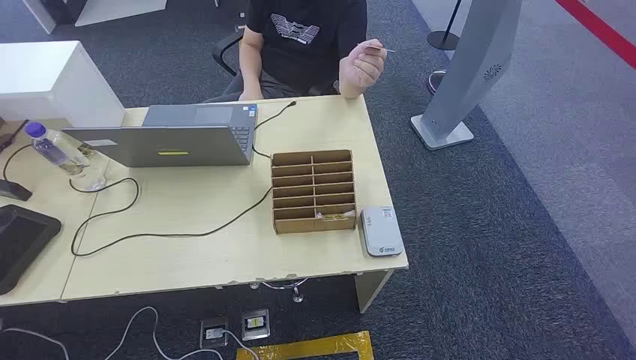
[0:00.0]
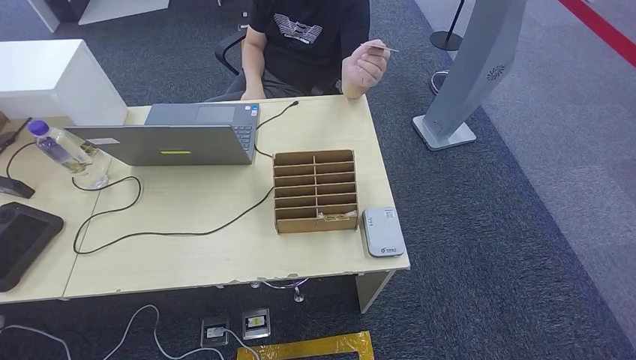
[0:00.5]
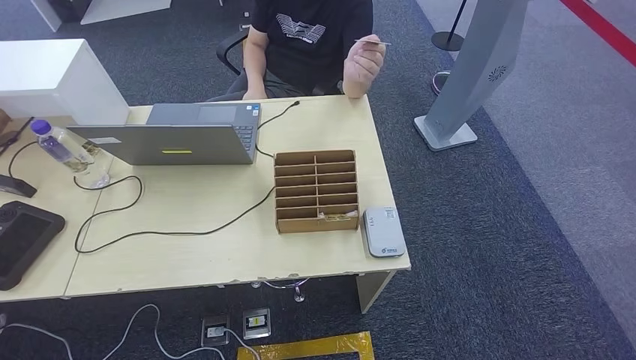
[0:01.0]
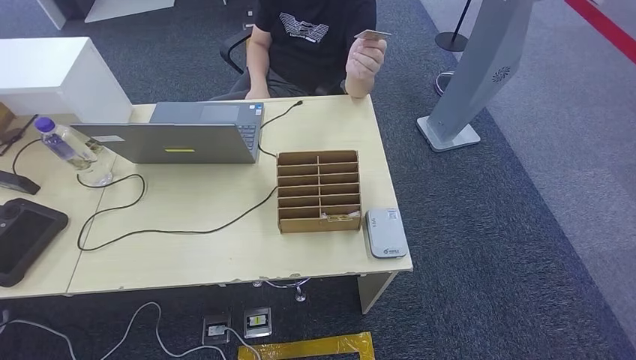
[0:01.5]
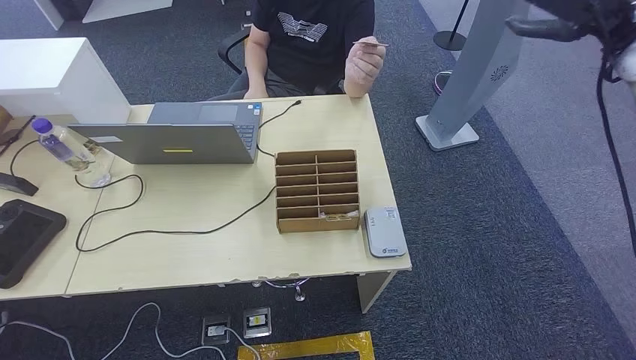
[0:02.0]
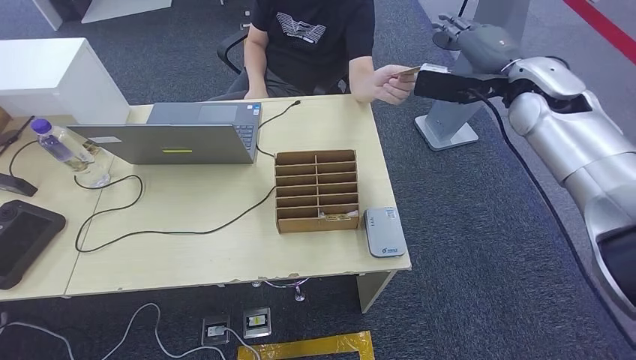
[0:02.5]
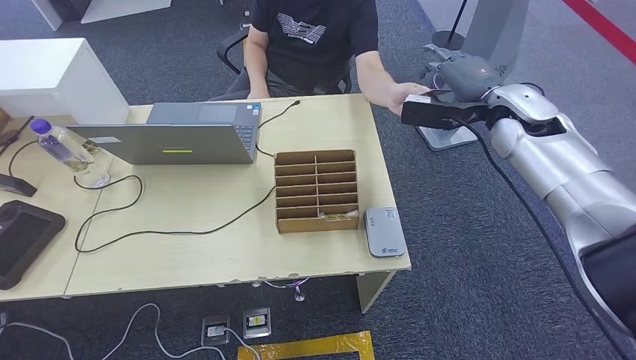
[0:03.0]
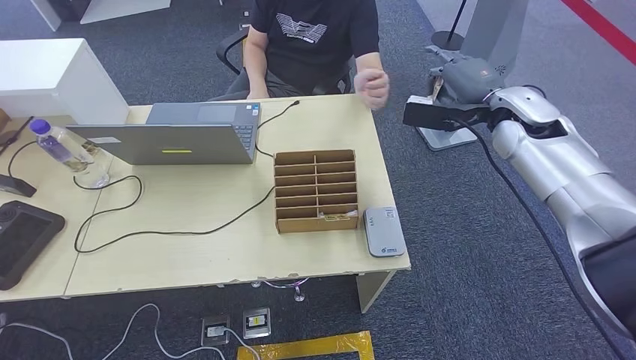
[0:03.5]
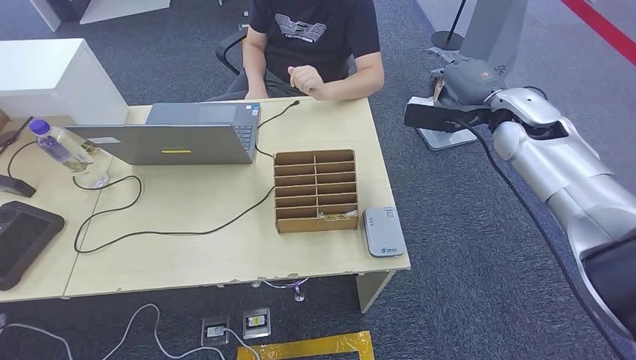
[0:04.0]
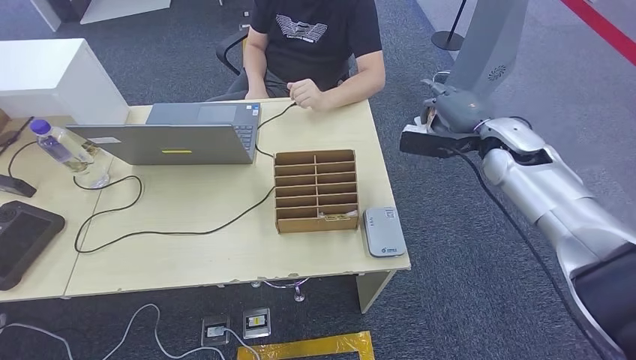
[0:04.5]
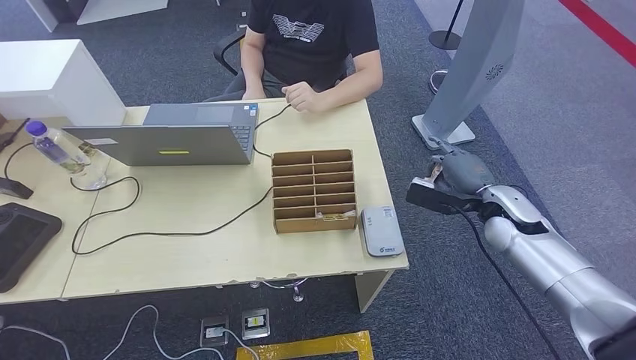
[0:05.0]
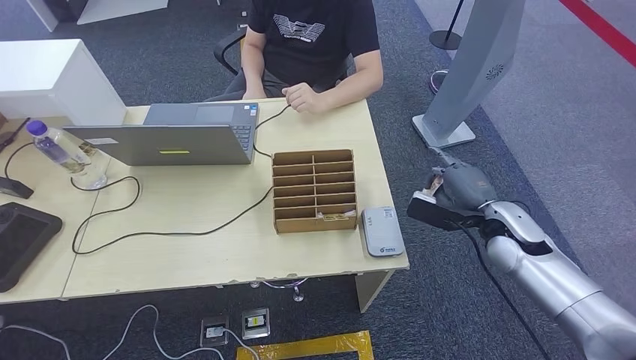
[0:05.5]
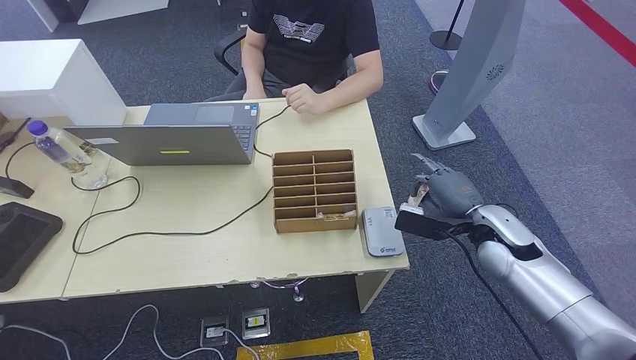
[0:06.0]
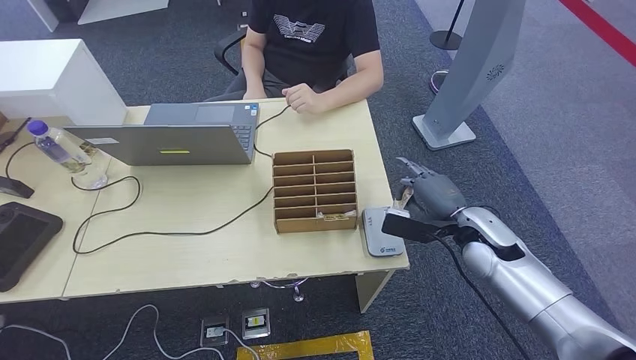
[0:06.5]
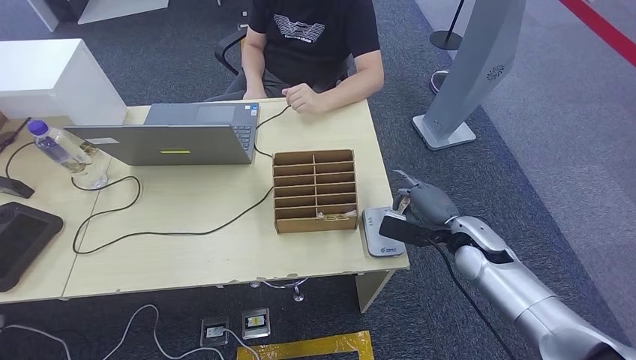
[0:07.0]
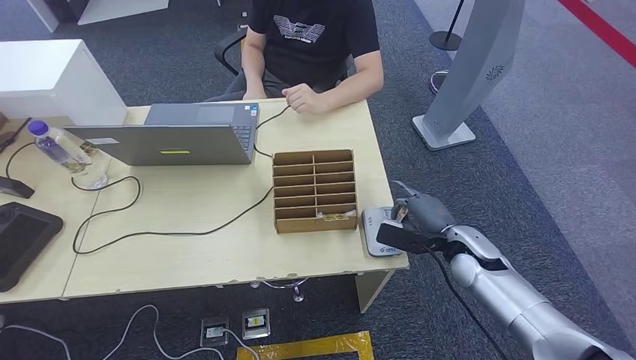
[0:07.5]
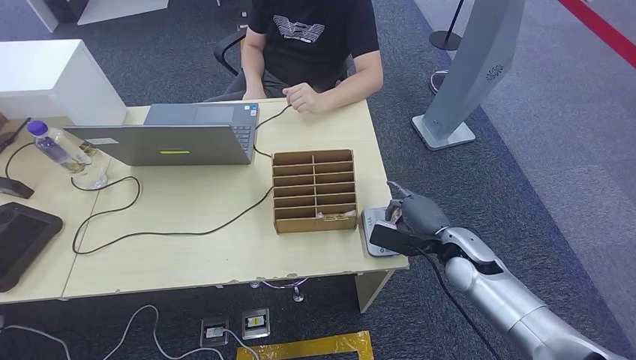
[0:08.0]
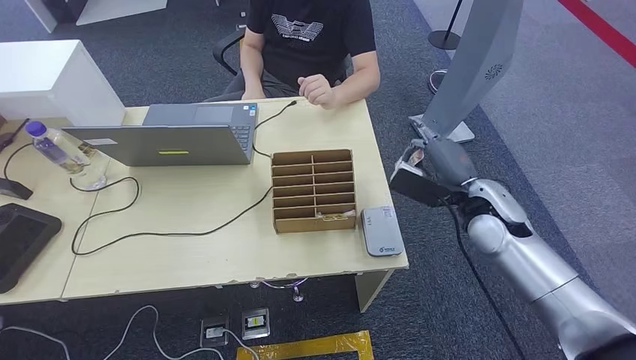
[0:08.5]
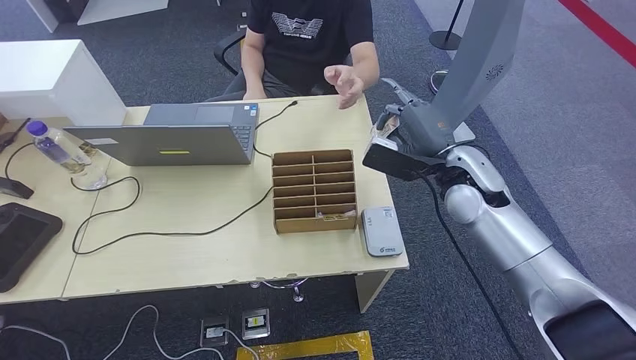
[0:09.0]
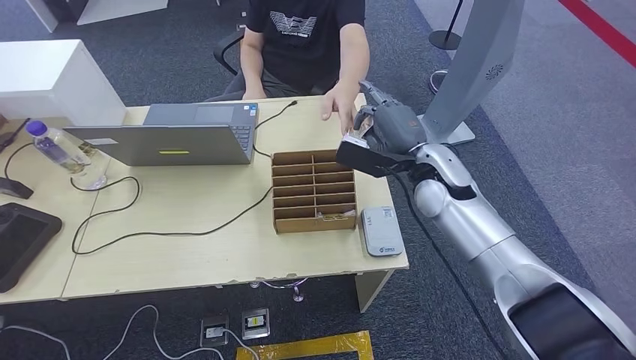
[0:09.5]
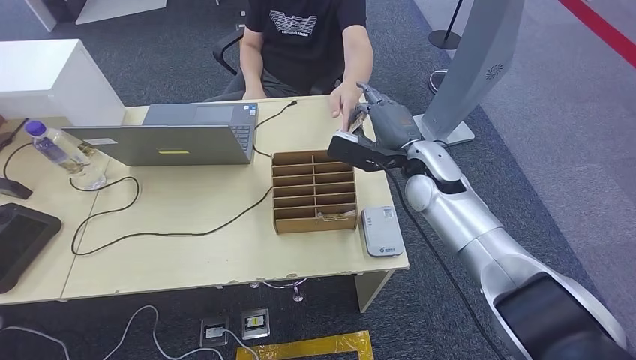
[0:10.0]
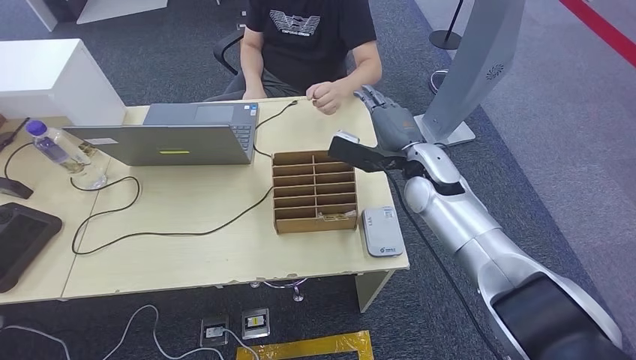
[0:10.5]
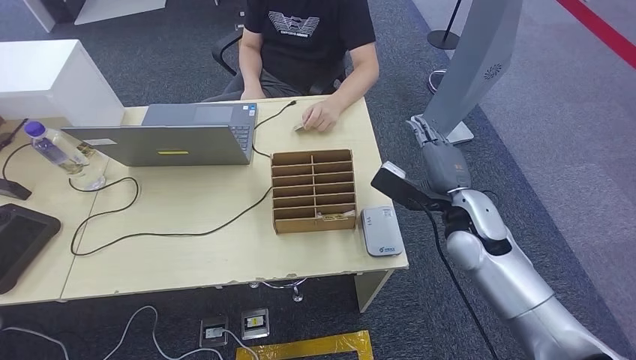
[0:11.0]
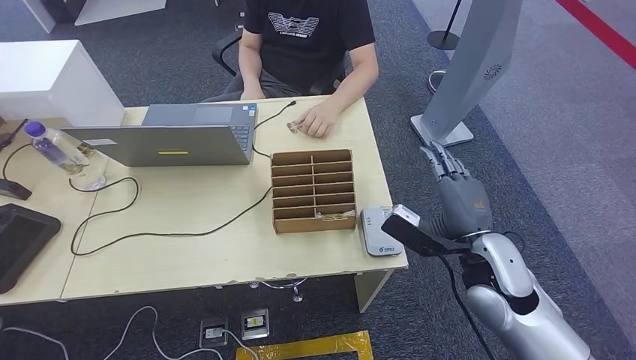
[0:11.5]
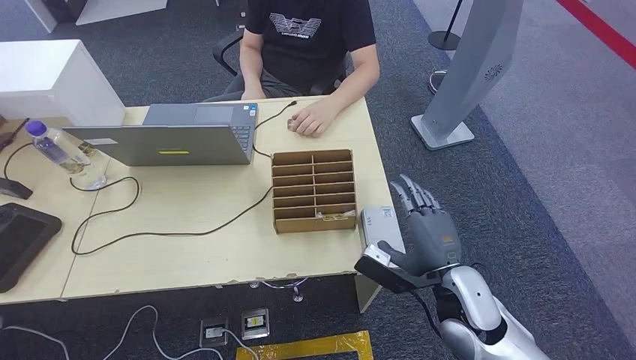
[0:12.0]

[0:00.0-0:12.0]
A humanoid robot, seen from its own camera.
Step, 0:00.0 to 0:04.0: Take the ID card from the person's hand.
Step, 0:04.5 to 0:07.0: Place the ID card on the card reader.
Step, 0:07.5 to 0:11.0: Hand the ID card to the person.
0:04.0 to 0:06.0: The right hand travels downward and backward by some 20 cm.
0:06.0 to 0:08.0: The right hand travels downward by approximately 5 cm.
0:08.0 to 0:10.0: The right hand shifts roughly 20 cm upward, forward and to the left.
0:10.0 to 0:12.0: The right hand travels backward and downward by approximately 20 cm.

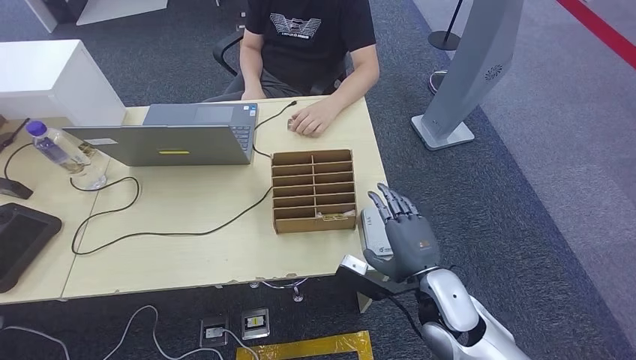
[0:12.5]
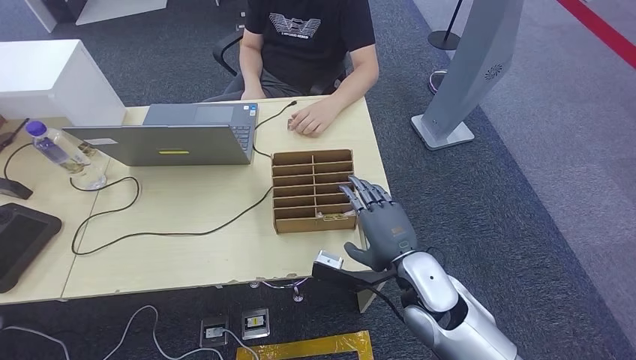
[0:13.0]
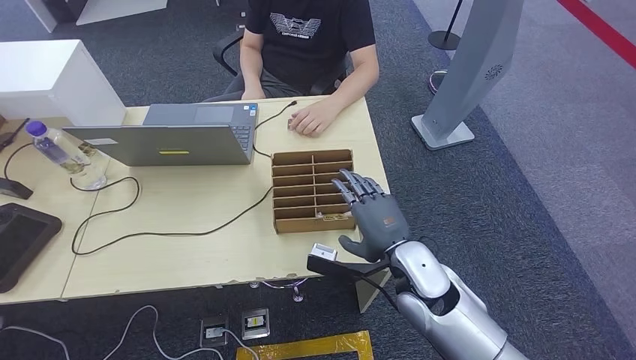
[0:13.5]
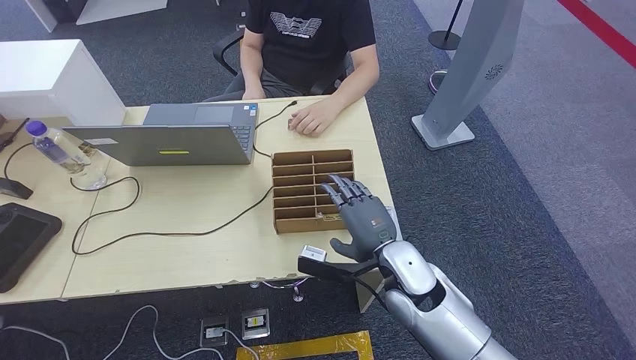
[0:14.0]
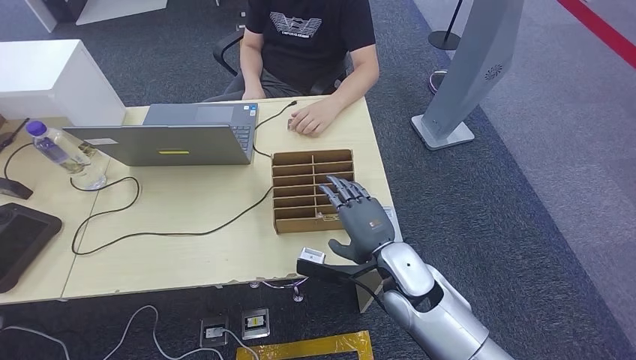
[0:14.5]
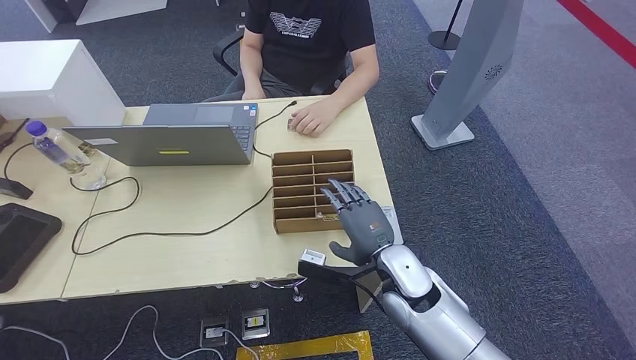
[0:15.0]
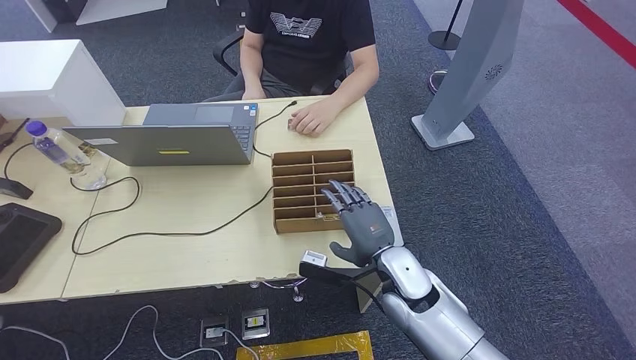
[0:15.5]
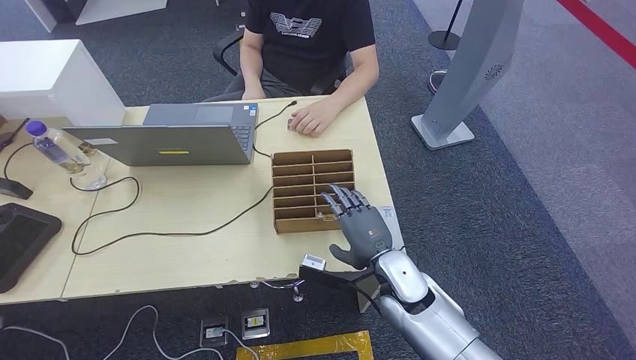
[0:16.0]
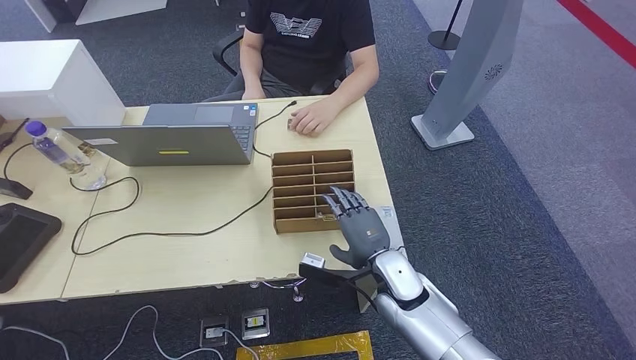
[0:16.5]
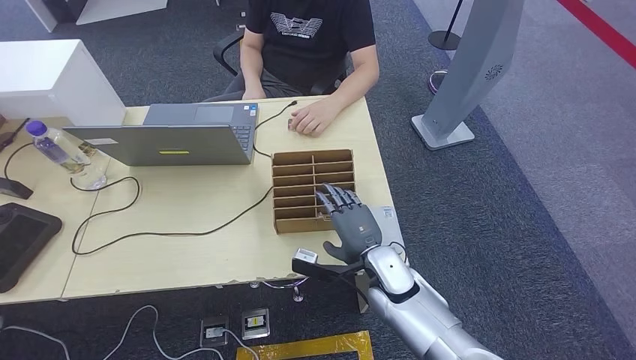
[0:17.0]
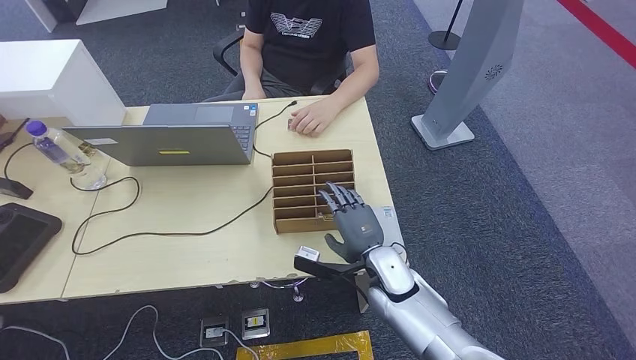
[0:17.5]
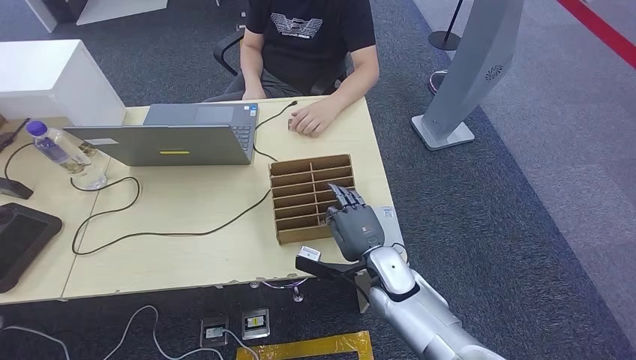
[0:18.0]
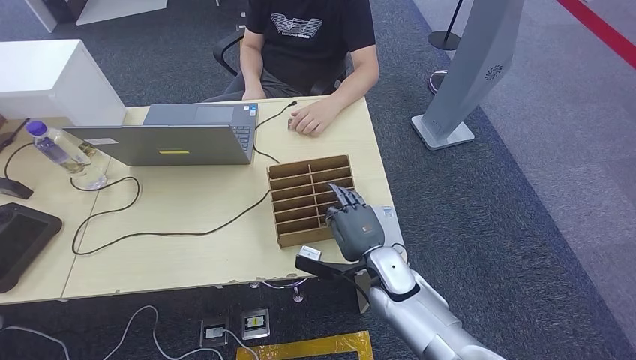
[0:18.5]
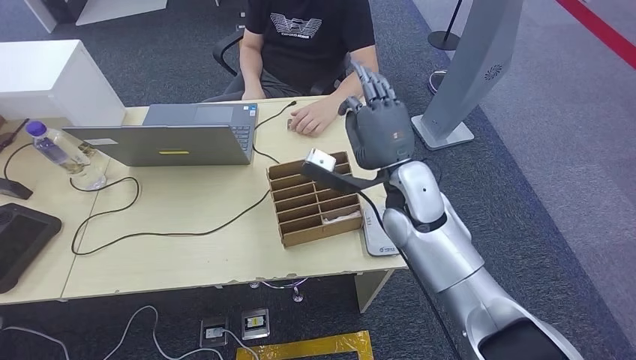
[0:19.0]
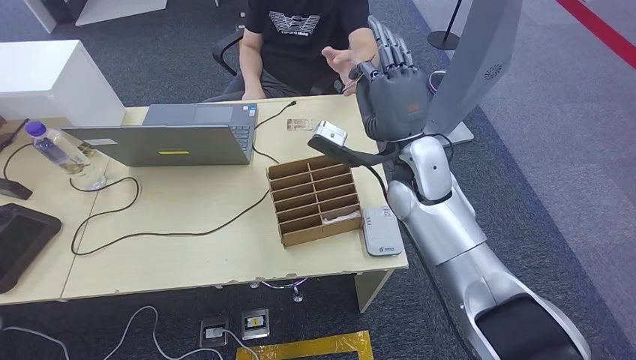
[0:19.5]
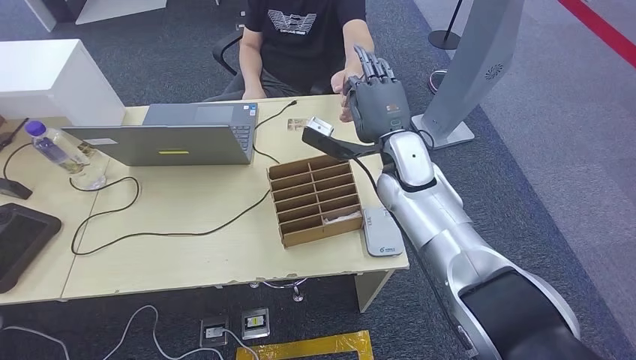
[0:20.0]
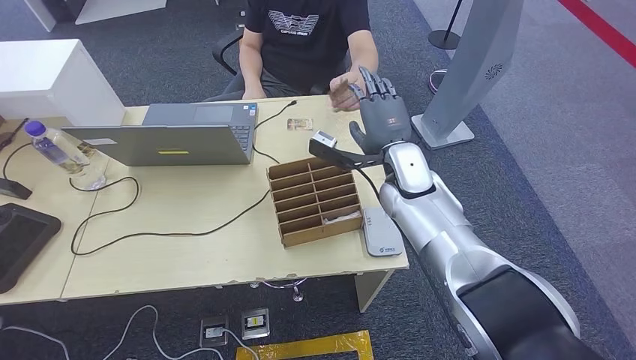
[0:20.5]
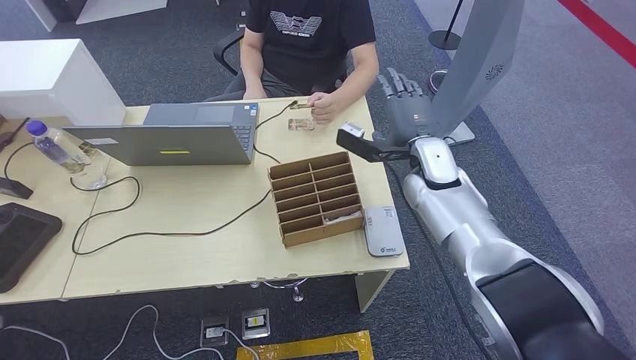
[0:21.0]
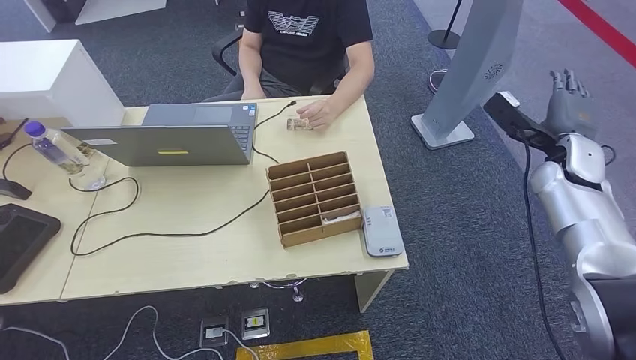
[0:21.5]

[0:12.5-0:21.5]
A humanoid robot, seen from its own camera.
Step, 0:12.5 to 0:16.5: Pick up the room key from the key card box.
Step, 0:17.0 to 0:21.5: Hand the room key to the person.
0:12.5 to 0:14.5: The right hand is displaced to the left by about 5 cm.
0:14.5 to 0:17.0: The right hand moves downward, about 5 cm.
0:17.0 to 0:19.5: The right hand is displaced upward and forward by about 20 cm.
0:19.5 to 0:21.5: The right hand shifts approximately 30 cm to the right.
